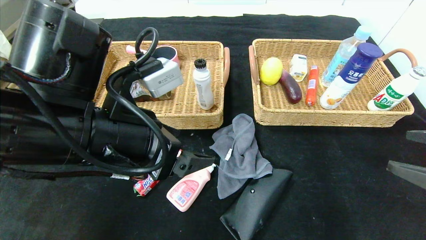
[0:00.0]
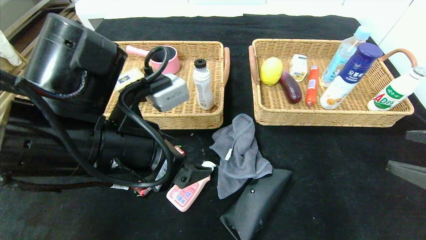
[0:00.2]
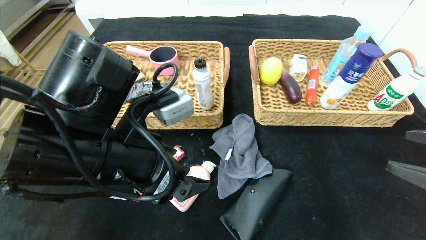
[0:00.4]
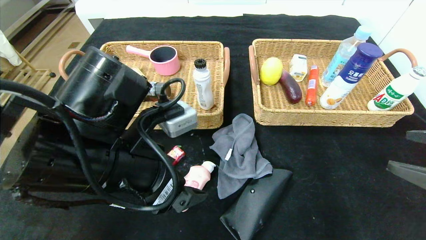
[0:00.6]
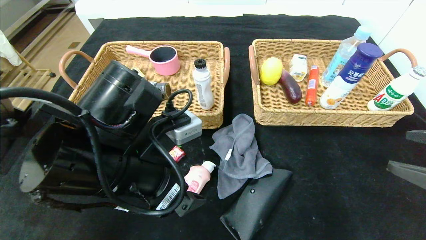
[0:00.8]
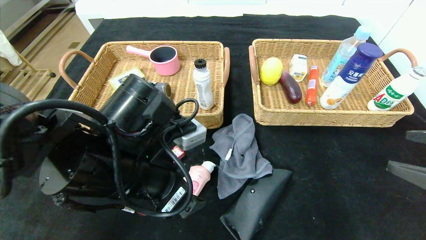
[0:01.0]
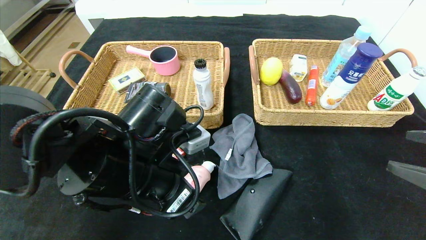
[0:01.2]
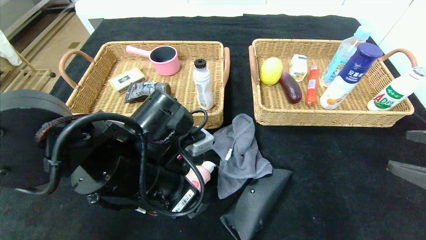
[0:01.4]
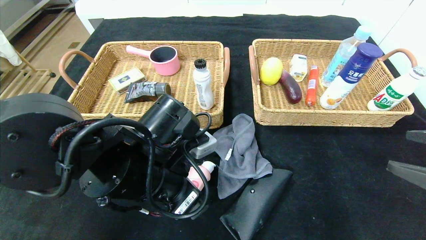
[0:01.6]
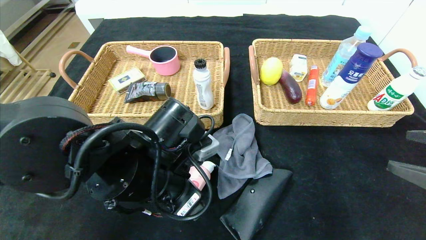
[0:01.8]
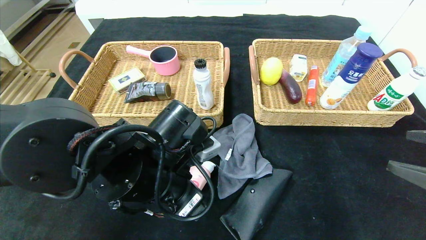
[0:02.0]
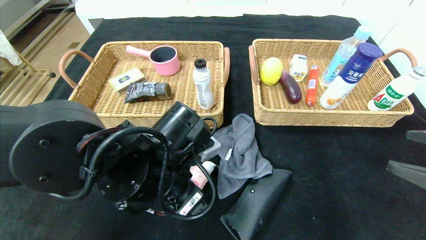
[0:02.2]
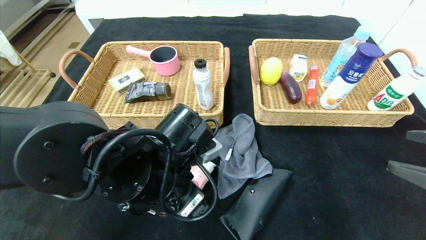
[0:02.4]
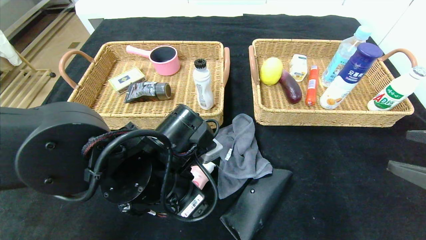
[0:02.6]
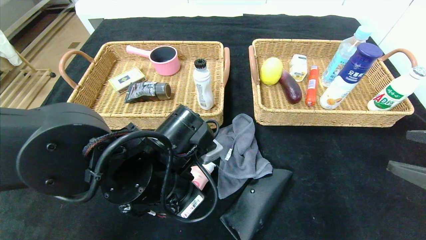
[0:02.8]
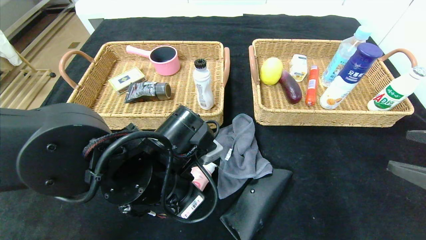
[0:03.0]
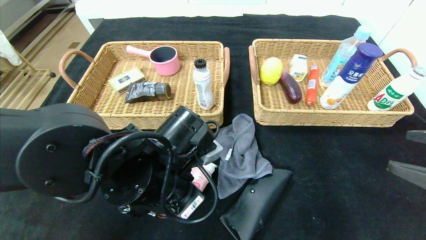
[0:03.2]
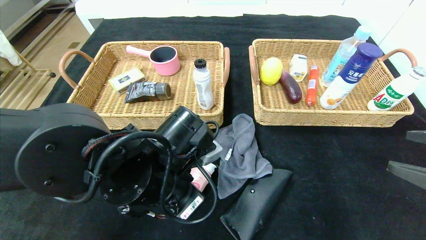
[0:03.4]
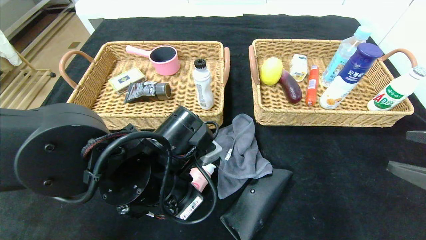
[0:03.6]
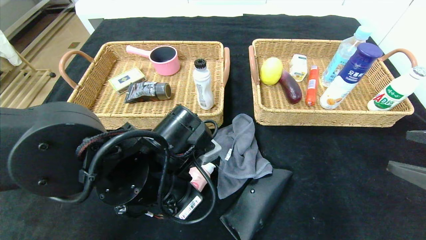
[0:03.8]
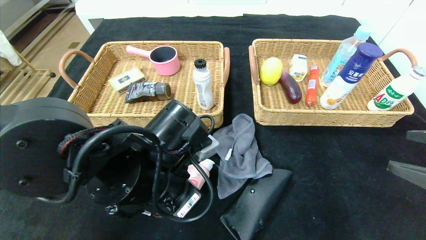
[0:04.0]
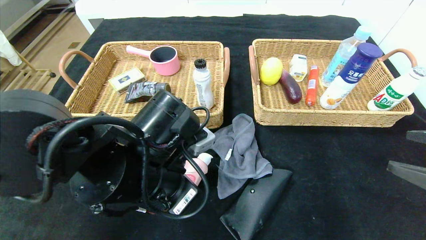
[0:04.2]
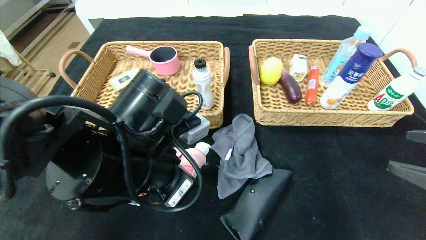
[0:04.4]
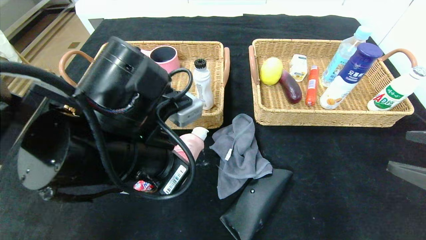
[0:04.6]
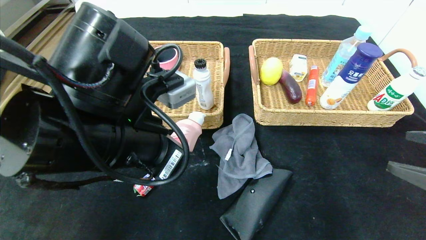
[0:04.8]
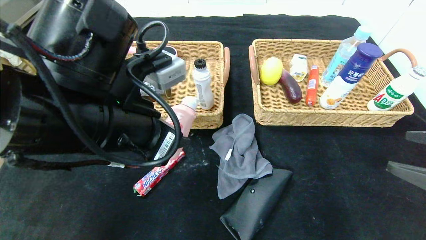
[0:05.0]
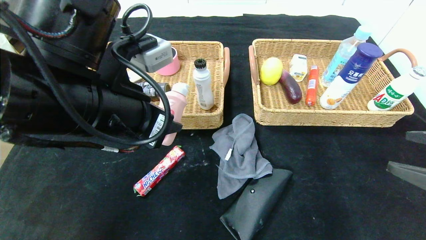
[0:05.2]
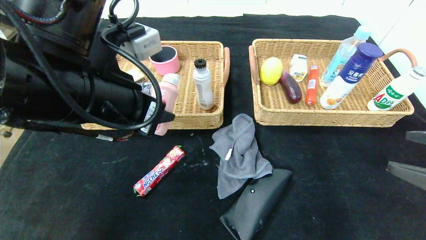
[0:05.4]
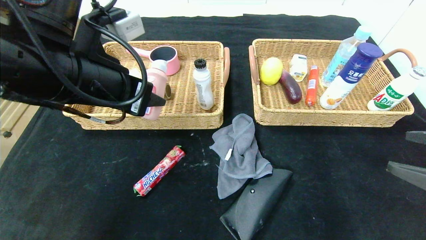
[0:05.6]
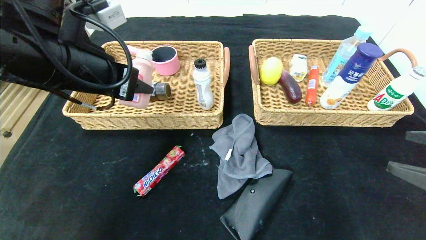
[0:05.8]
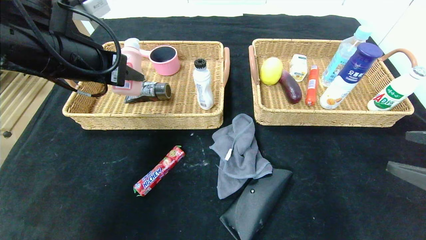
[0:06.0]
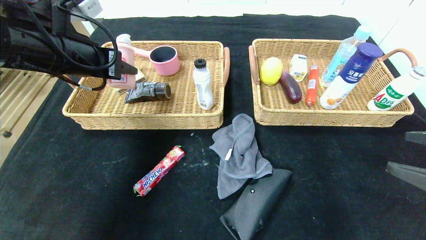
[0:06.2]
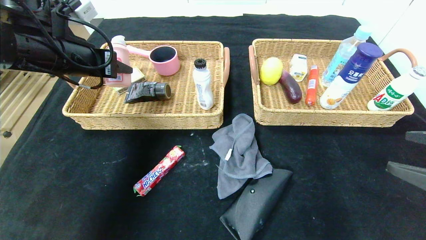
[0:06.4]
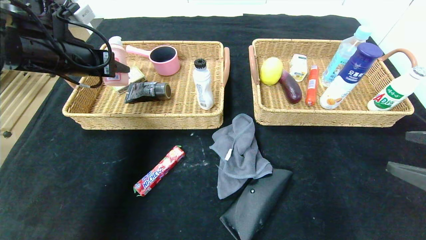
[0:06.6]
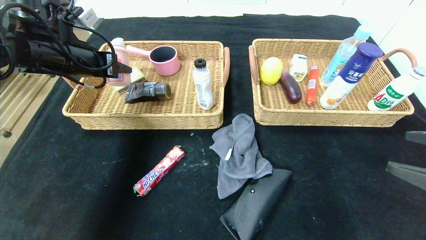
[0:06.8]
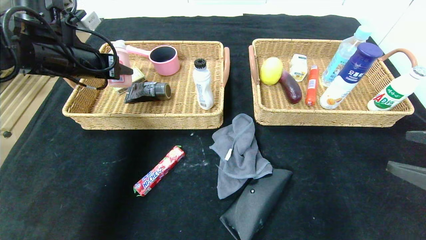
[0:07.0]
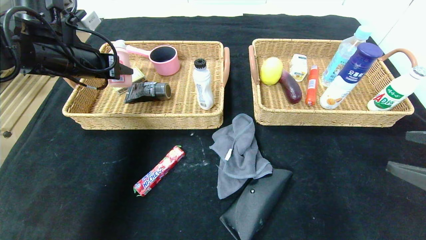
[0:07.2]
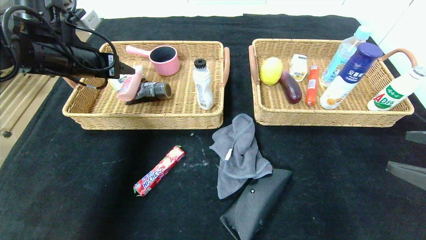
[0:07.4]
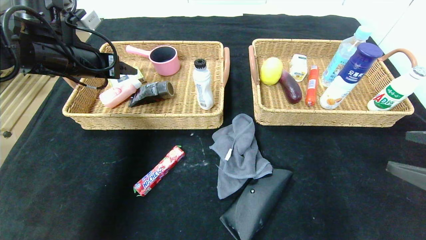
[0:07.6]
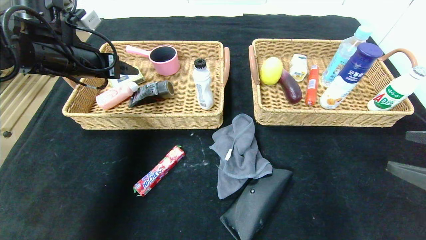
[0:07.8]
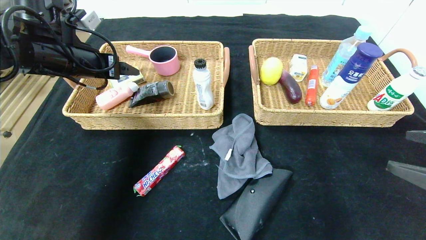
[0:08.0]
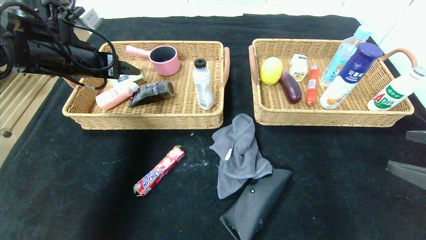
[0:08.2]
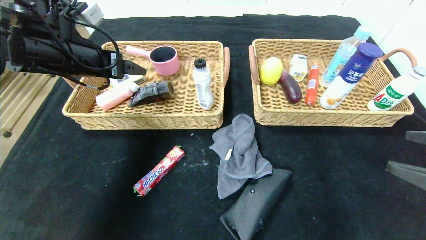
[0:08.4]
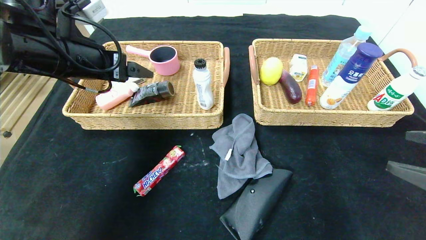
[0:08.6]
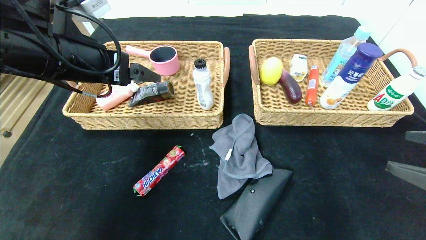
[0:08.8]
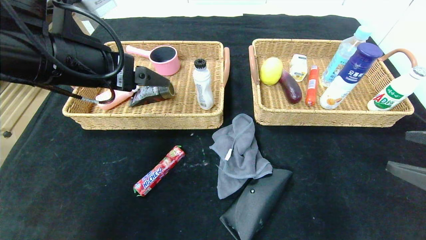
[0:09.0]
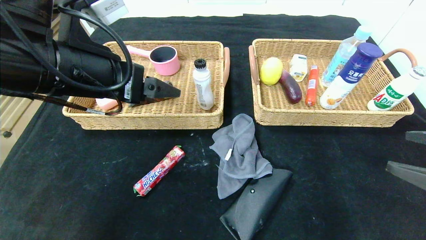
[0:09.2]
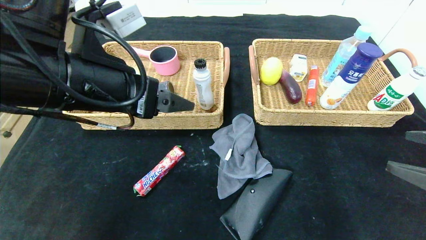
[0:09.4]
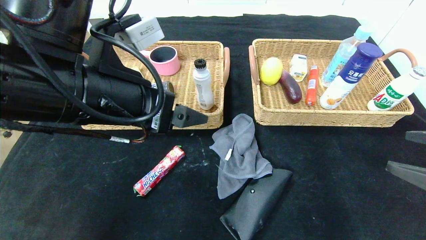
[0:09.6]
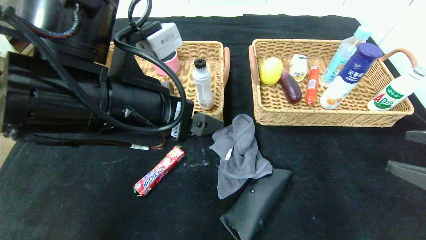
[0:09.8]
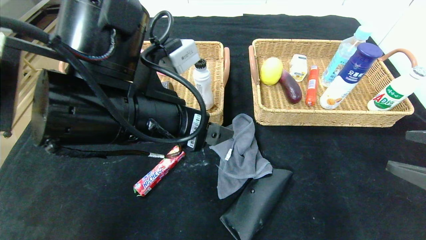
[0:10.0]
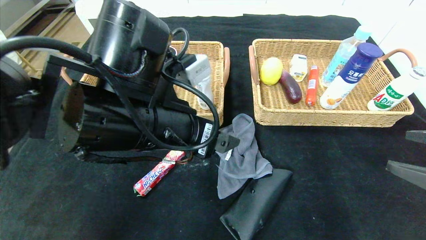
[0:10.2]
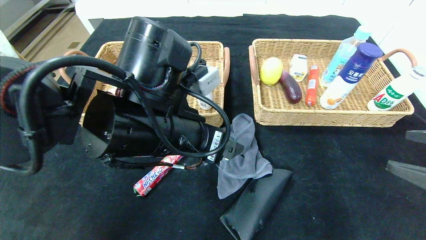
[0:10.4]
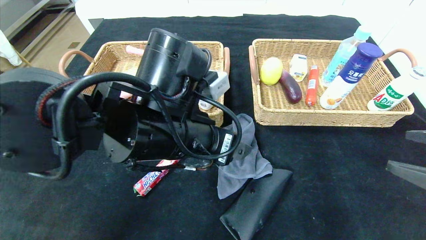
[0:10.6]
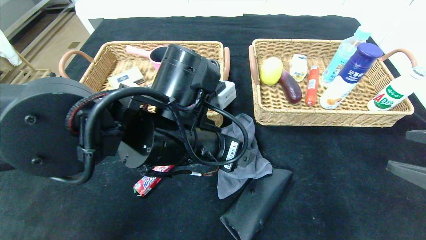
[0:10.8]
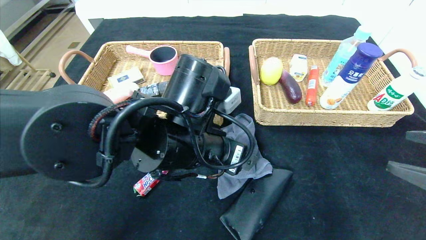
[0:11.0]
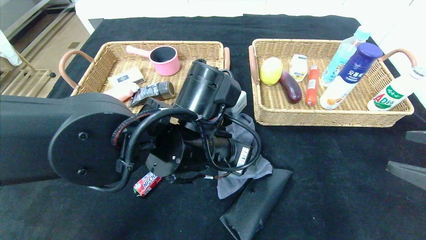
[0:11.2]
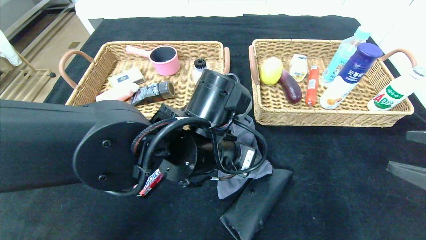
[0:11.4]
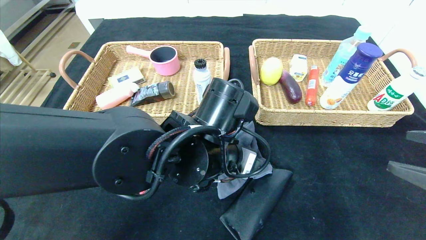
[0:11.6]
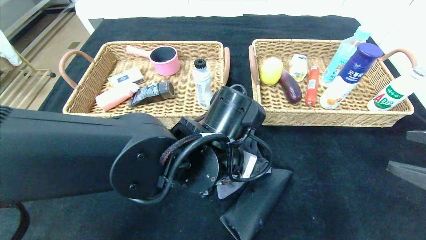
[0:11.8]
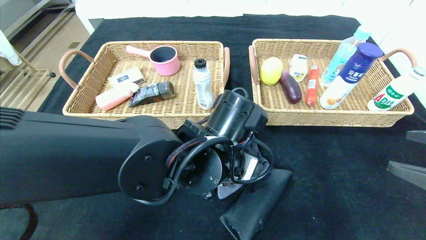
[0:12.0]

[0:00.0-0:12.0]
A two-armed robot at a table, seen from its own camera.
Step, 0:00.0 to 0:07.8: Grasp the detergent and put it in the left basket.
0:00.0 to 0:01.6: The left gripper moves downward, some 5 cm.
0:01.6 to 0:03.0: The left gripper closes up.
0:03.0 to 0:04.4: The grippers make only small movements.
0:04.4 to 0:06.0: The left gripper is displaced to the left, upward and forward by about 20 cm.
0:06.0 to 0:07.6: The left gripper goes roughly 10 cm forward and to the left.
0:07.6 to 0:09.0: The left gripper heads backward and to the right, covering about 15 cm.
0:09.0 to 0:10.4: The left gripper travels to the right and downward by about 15 cm.
0:10.4 to 0:12.0: The left gripper travels to the right and downward by approximately 10 cm.

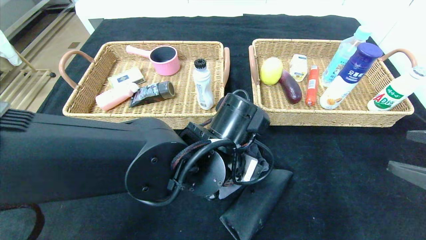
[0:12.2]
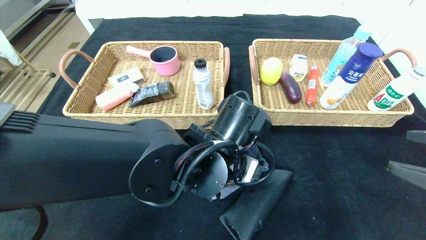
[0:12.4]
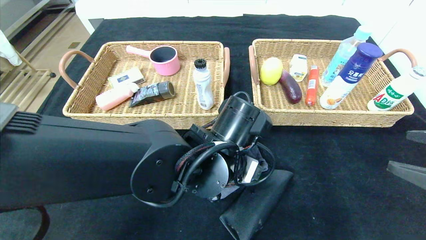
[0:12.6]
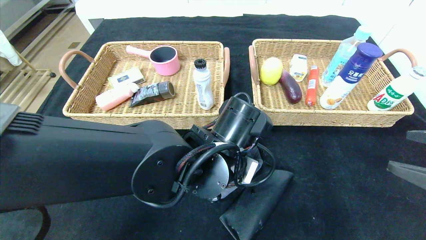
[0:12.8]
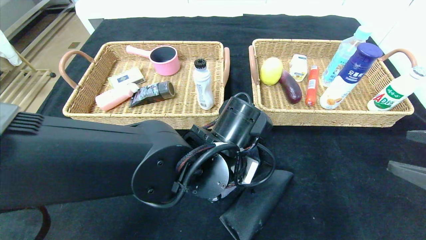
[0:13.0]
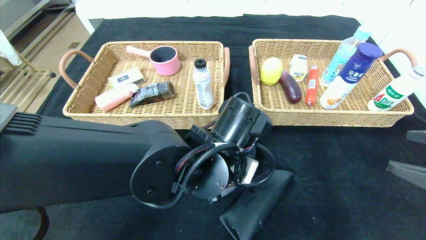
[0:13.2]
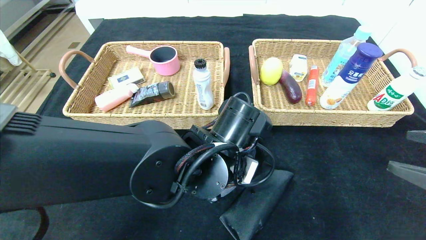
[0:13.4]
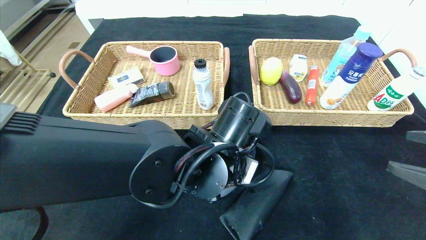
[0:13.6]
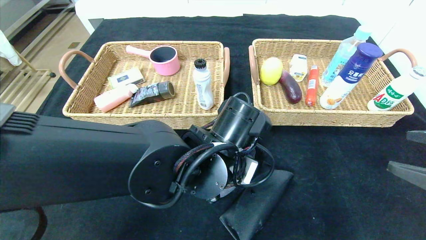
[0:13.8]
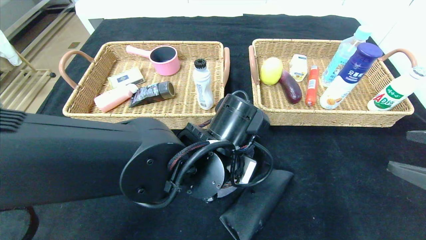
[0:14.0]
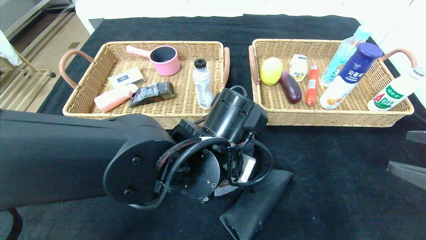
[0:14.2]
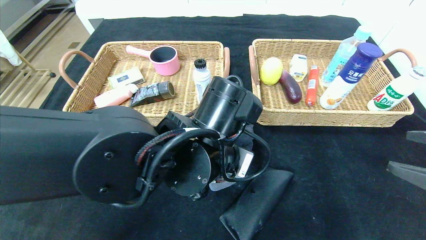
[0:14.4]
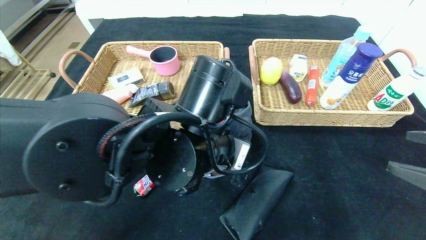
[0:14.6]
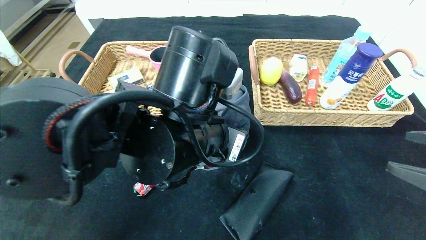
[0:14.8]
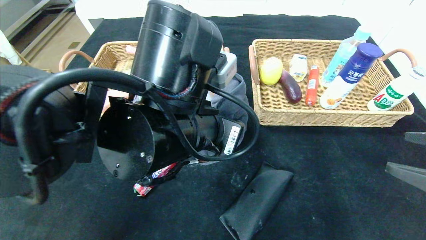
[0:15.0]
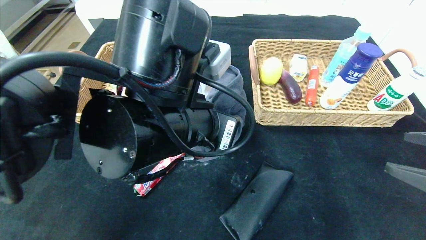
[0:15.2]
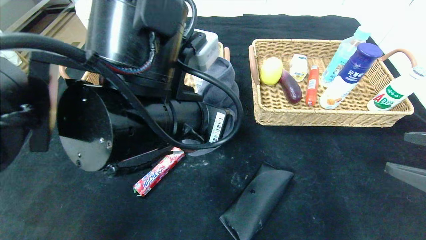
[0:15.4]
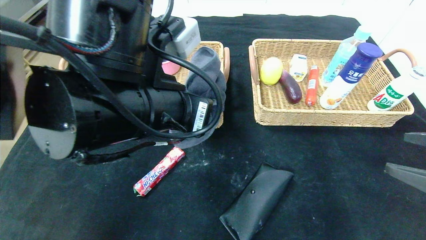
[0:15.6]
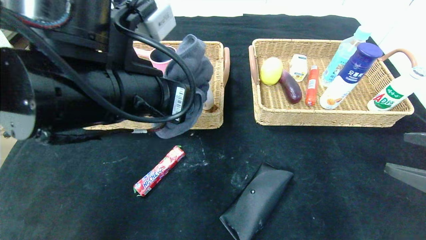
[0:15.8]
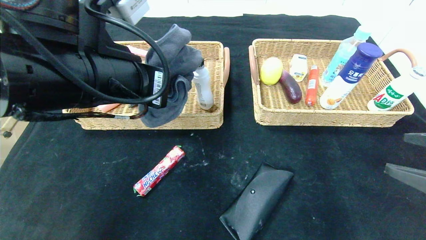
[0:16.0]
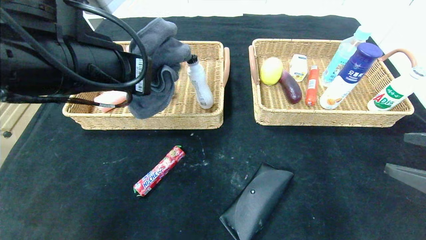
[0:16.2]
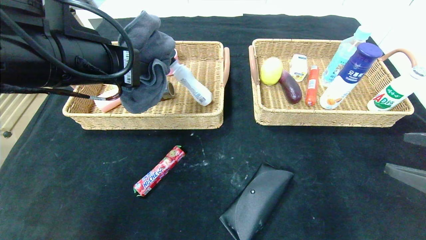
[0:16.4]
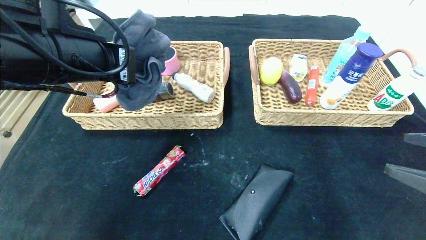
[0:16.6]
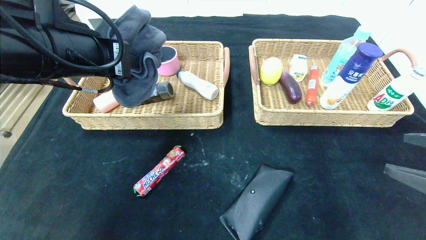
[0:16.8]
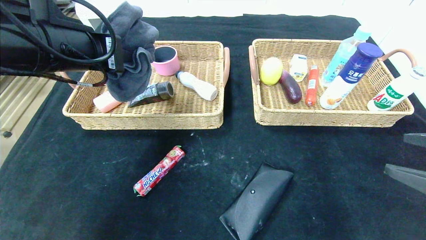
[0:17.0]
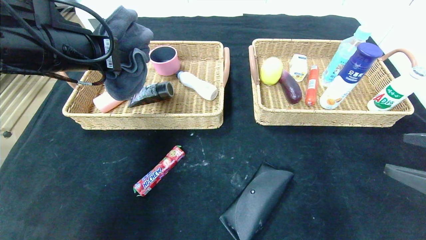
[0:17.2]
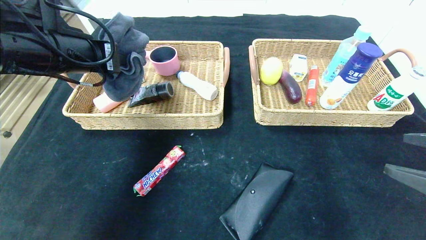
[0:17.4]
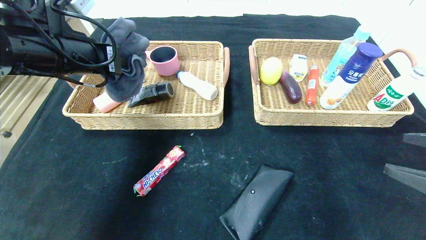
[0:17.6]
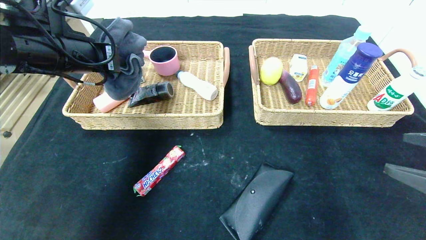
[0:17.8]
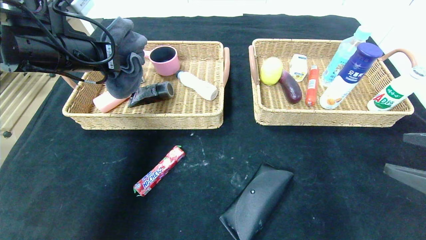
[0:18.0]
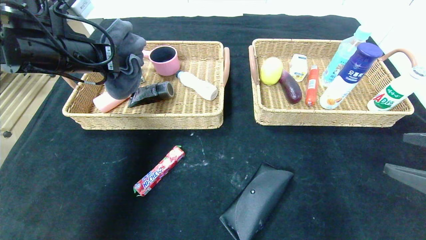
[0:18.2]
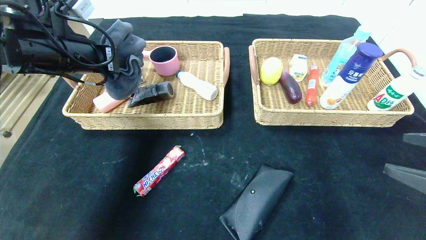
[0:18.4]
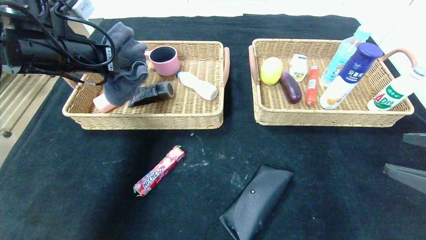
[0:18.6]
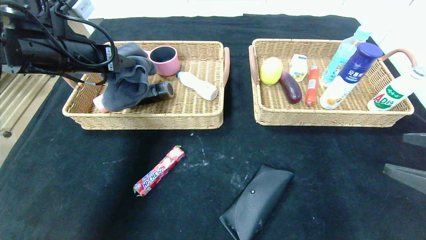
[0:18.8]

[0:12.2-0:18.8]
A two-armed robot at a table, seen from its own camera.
0:12.2 to 0:13.8: The left gripper closes.
0:13.8 to 0:15.4: The left gripper goes about 10 cm upward and to the left.
0:15.4 to 0:17.2: The left gripper is displaced to the left and forward by approximately 20 cm.
0:17.2 to 0:18.8: The left gripper goes some 5 cm forward, and opens its fingers.
